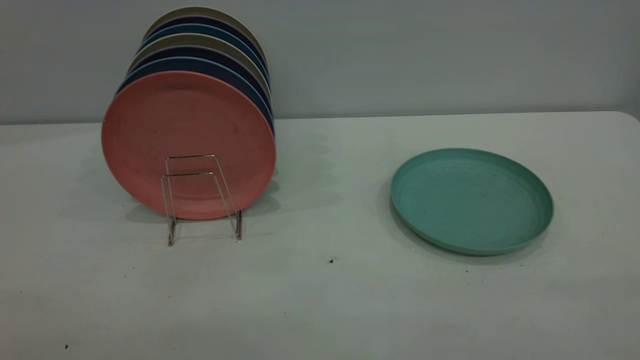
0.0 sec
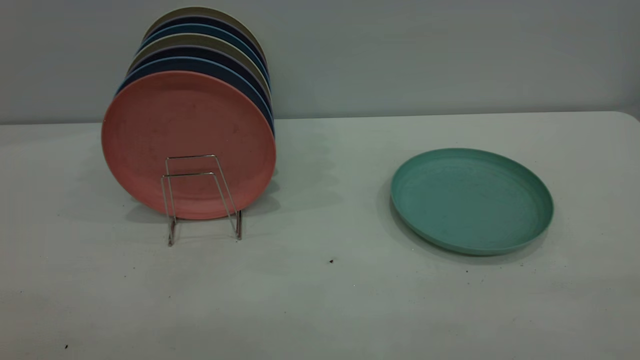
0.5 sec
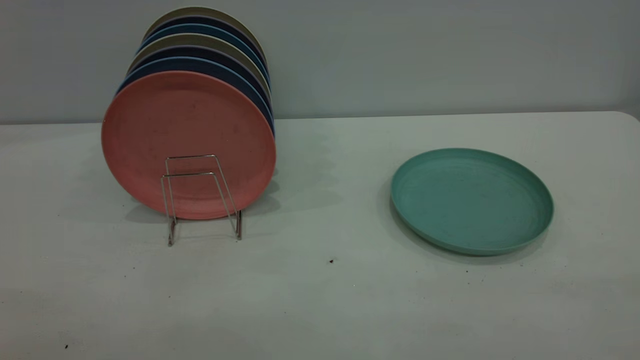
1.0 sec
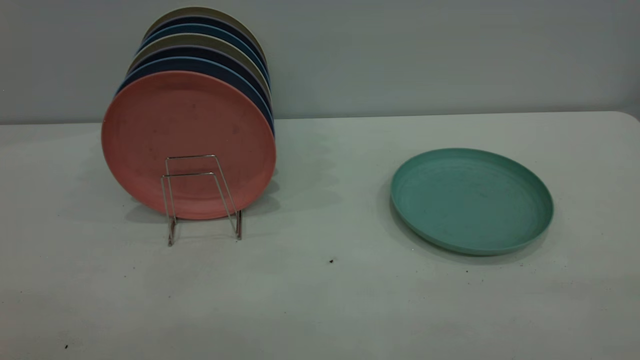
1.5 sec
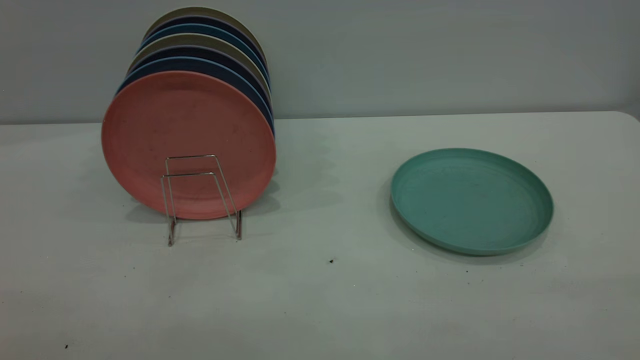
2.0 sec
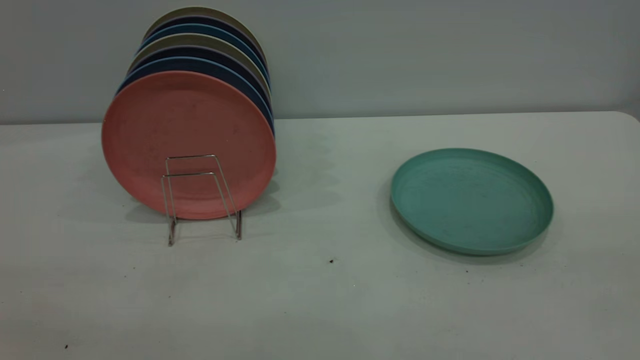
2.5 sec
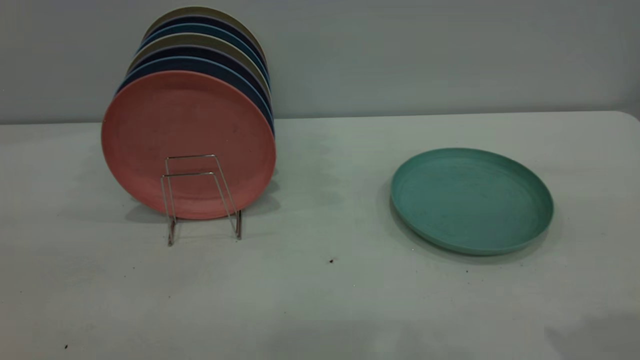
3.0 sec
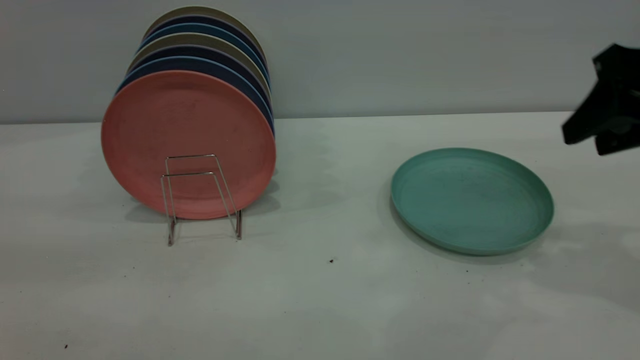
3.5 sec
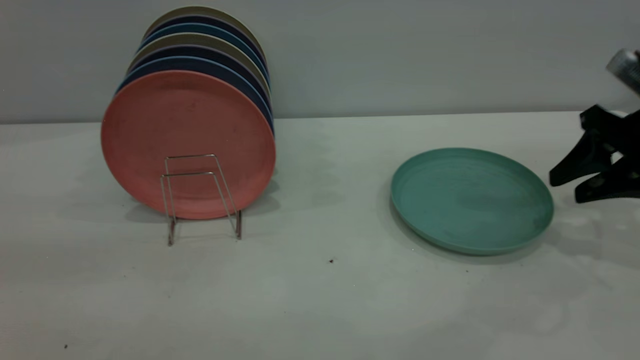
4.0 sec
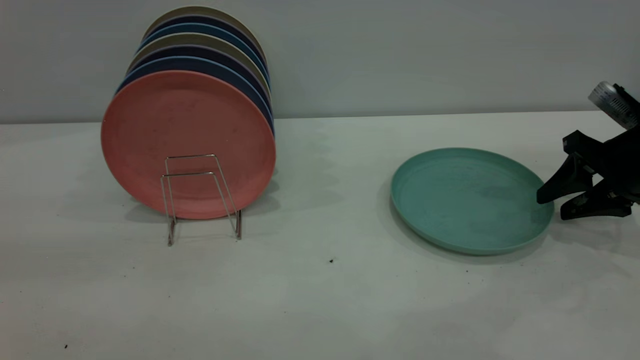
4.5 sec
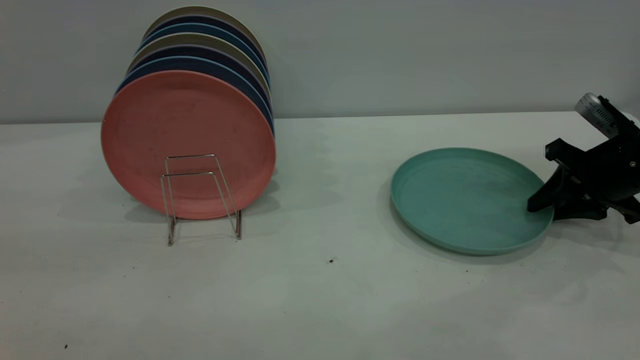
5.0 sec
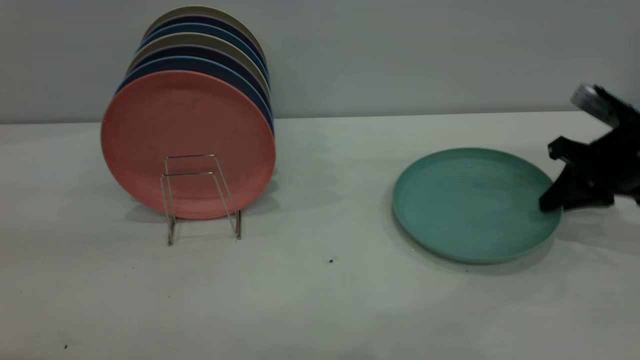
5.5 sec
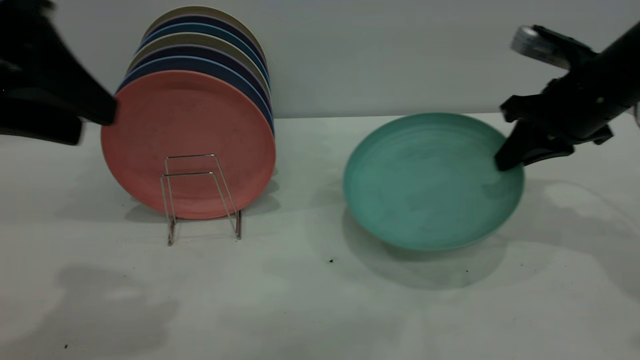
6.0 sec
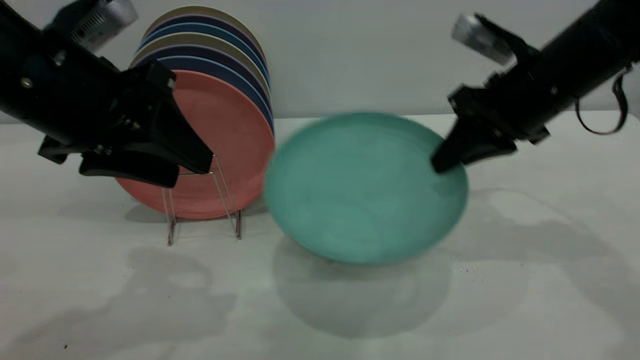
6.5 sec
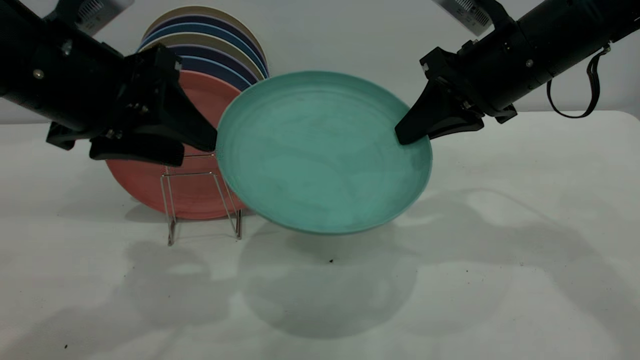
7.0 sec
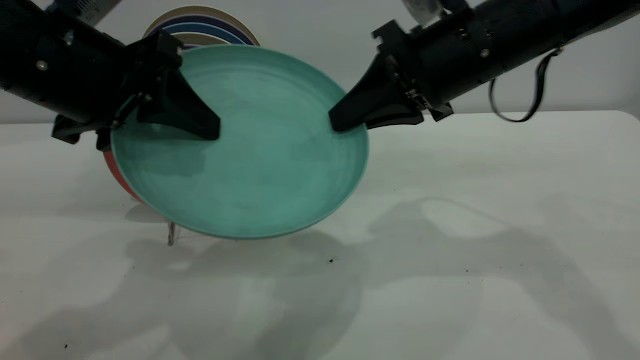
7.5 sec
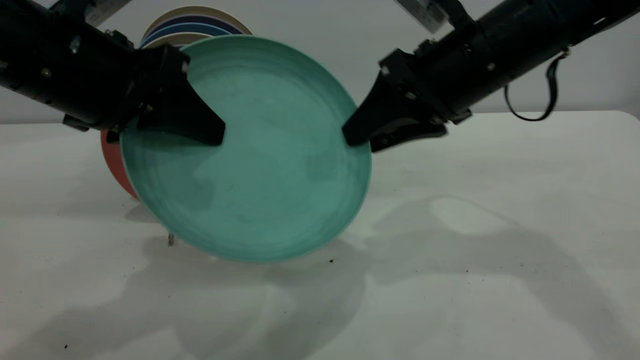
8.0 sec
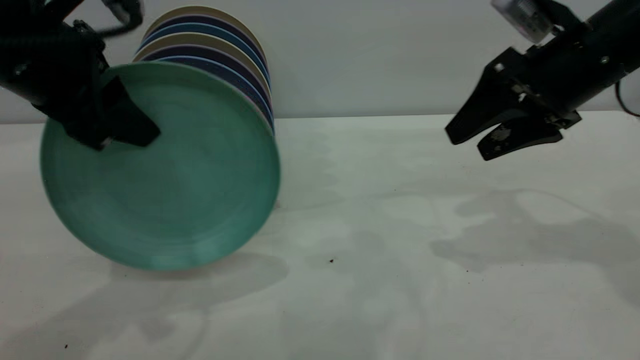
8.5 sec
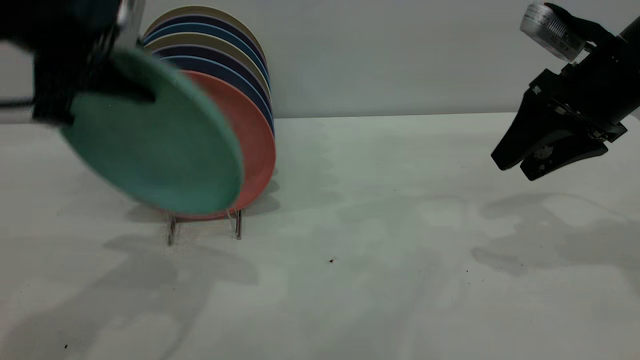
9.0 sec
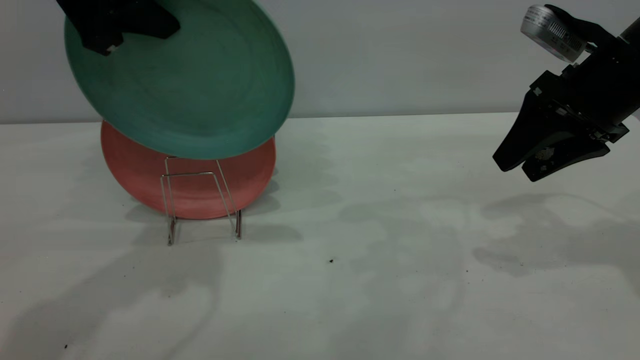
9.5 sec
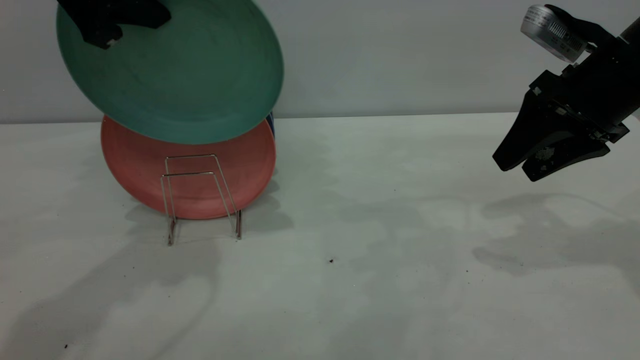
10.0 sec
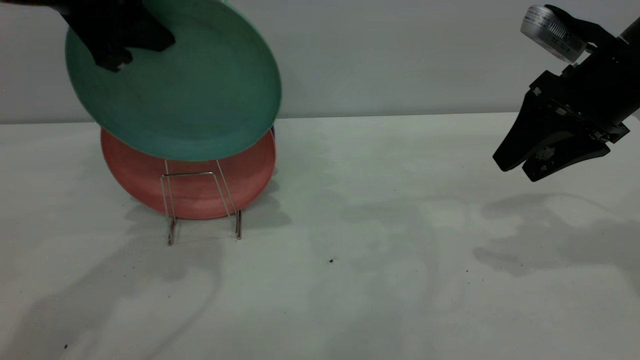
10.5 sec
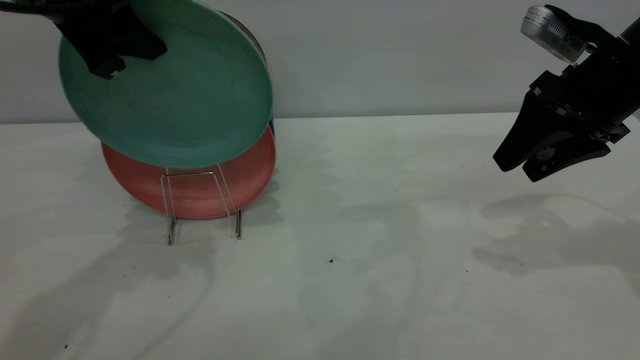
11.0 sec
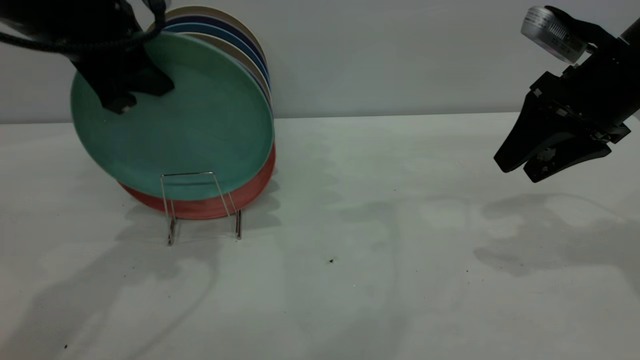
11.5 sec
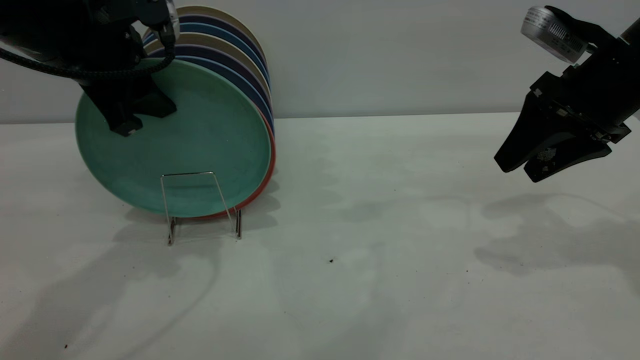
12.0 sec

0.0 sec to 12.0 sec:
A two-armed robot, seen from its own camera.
Task of the whole recording: the right gripper grasp the green plate, the right gripper pass the green plate to the left gripper, and the left gripper place the green plate on the plate rack.
Step, 0.0 sec to 5.5 sec: Pick up the plate with the right gripper.
Step, 6.0 sec to 8.0 sec: Pass the plate from the right gripper to the left gripper.
0.0 sec to 2.0 sec: Both grippers stay about where they are.
2.0 sec to 4.0 sec: The right gripper moves forward and downward, some 40 cm.
4.0 sec to 6.0 sec: The left gripper travels forward and downward by about 15 cm. The right gripper goes roughly 10 cm to the left, moves roughly 5 cm downward and comes back, and closes.
6.0 sec to 8.0 sec: The left gripper shifts by some 5 cm, and closes its fingers, while the right gripper goes roughly 10 cm to the left, and opens up.
8.0 sec to 10.0 sec: The right gripper shifts roughly 10 cm to the right; the left gripper is displaced upward and forward by roughly 10 cm.
10.0 sec to 12.0 sec: The left gripper goes roughly 10 cm downward.

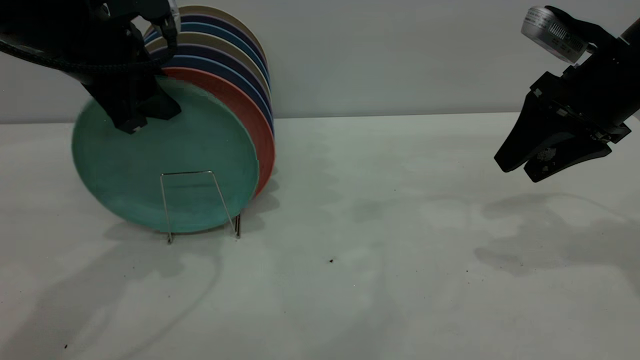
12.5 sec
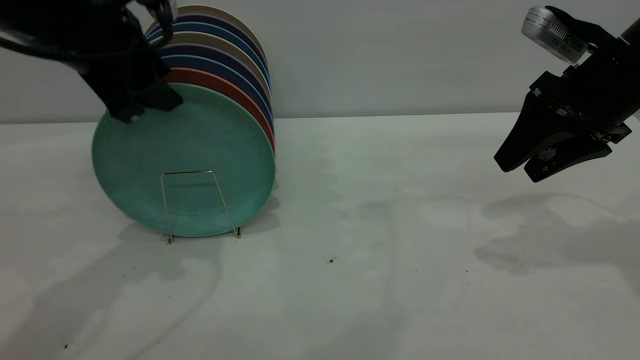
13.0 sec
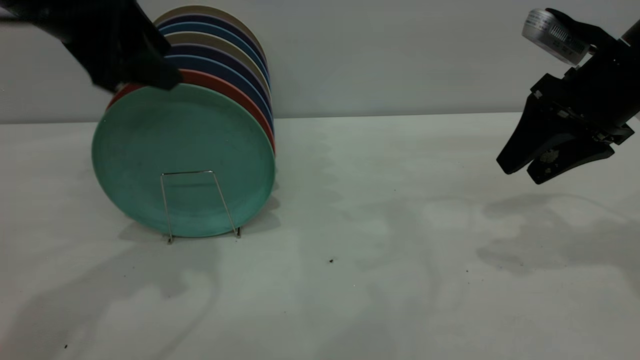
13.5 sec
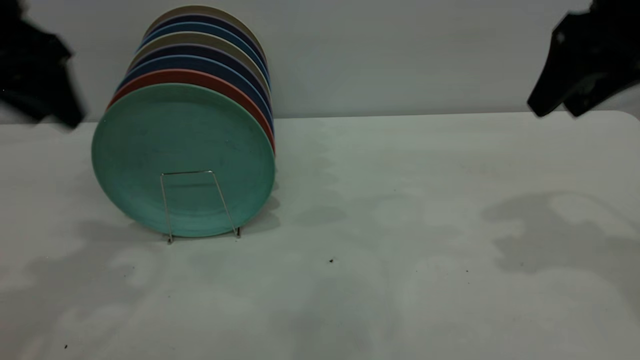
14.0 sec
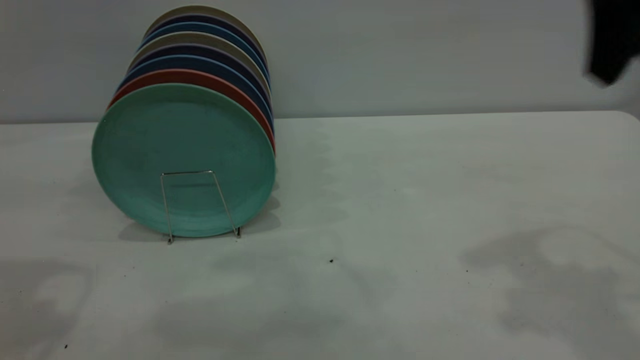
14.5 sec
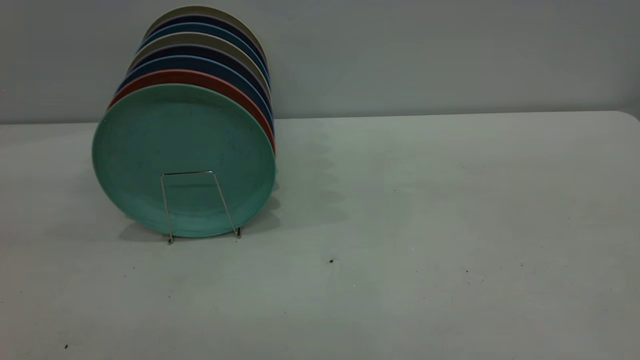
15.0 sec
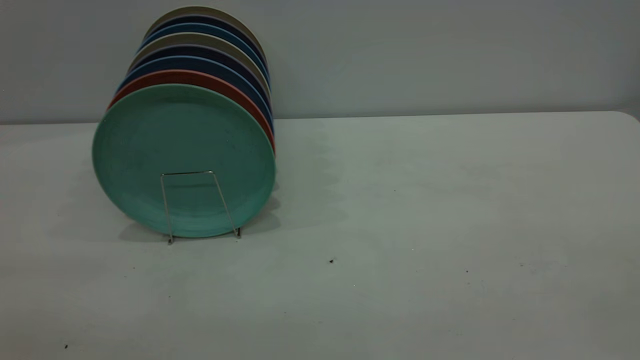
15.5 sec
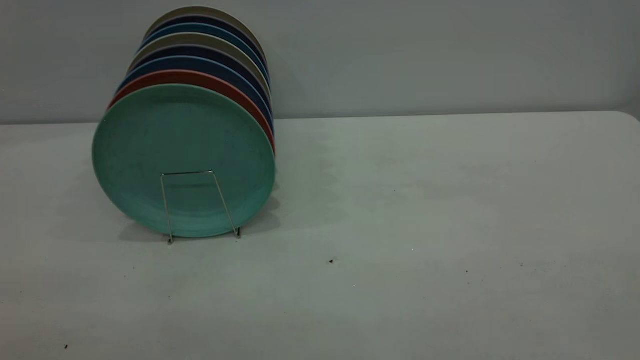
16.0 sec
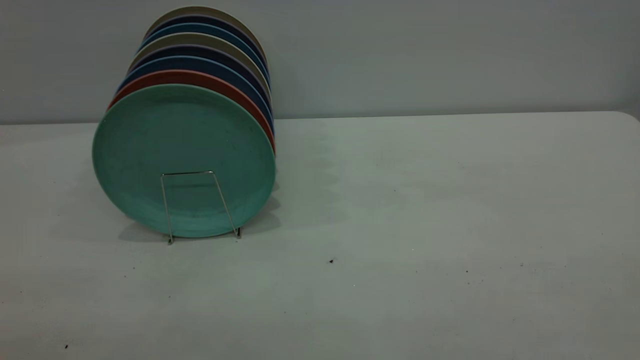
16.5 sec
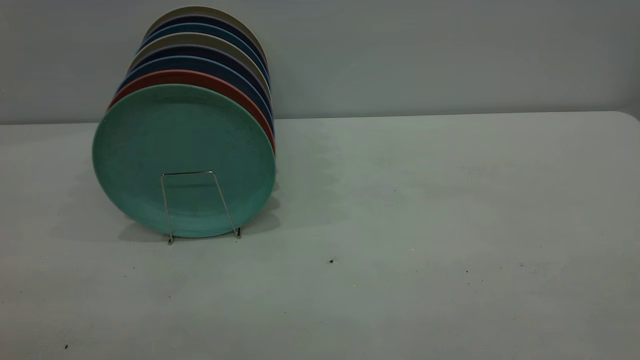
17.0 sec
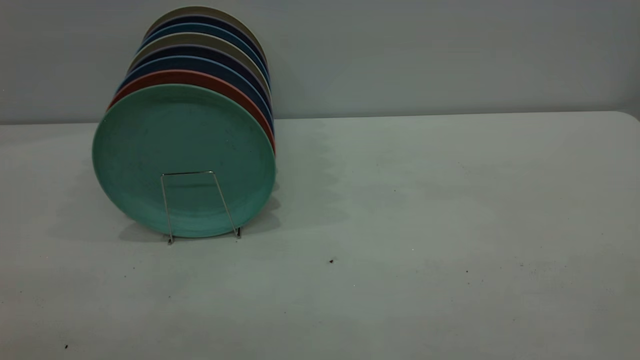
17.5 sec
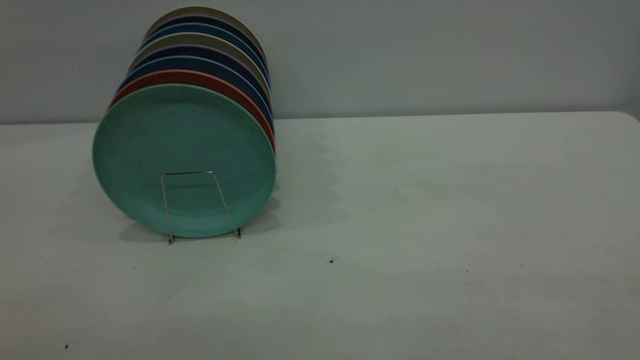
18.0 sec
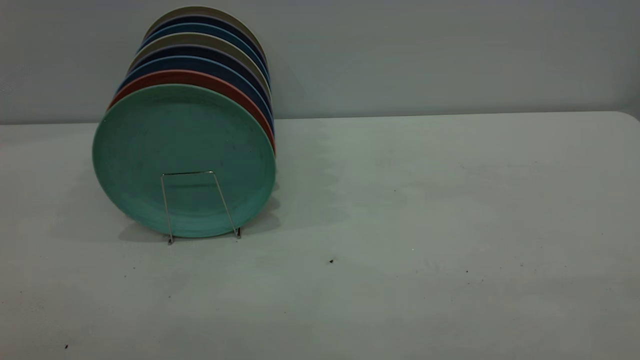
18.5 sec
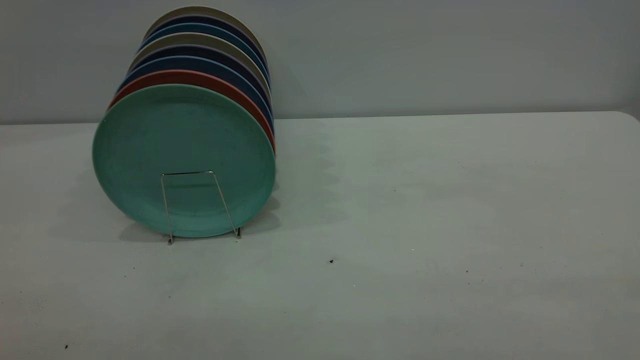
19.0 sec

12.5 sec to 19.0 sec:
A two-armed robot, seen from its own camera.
Task of the whole recording: the right gripper grasp the green plate, the right gripper pass the green plate to the left gripper, and the left gripper place the green plate on the plate rack.
12.5 sec to 14.5 sec: The left gripper goes some 20 cm upward, backward and to the left. The right gripper travels upward and backward by some 20 cm.
14.5 sec to 17.0 sec: The right gripper travels backward by some 30 cm.
